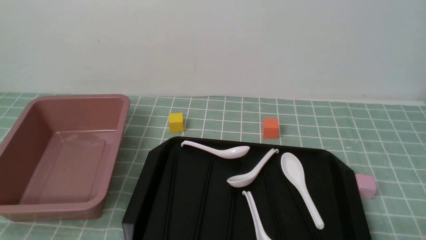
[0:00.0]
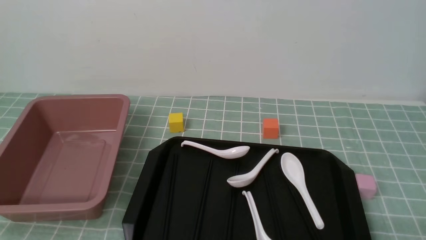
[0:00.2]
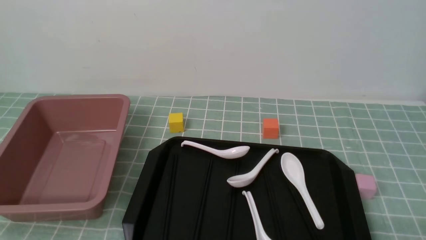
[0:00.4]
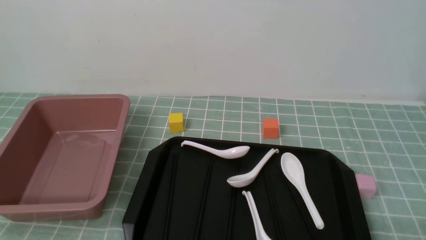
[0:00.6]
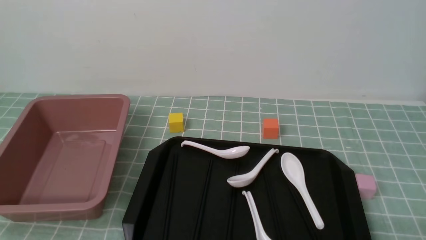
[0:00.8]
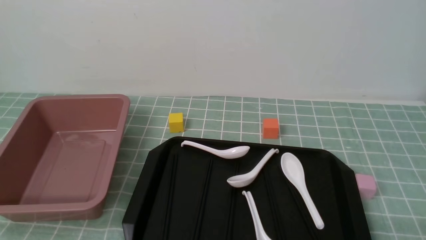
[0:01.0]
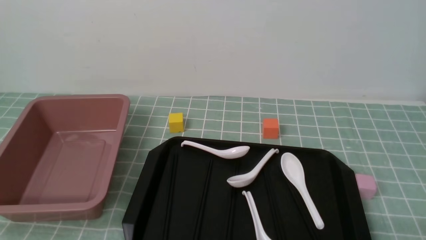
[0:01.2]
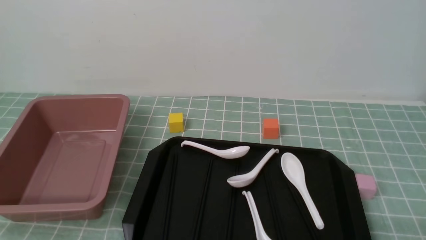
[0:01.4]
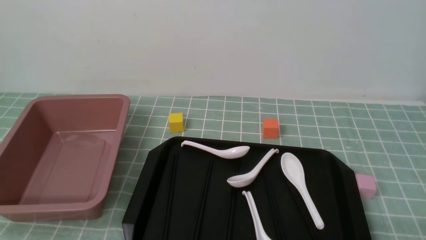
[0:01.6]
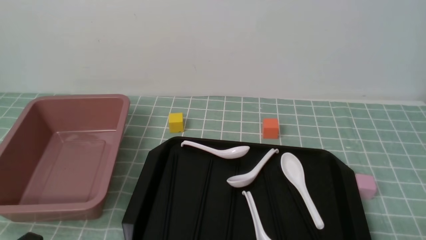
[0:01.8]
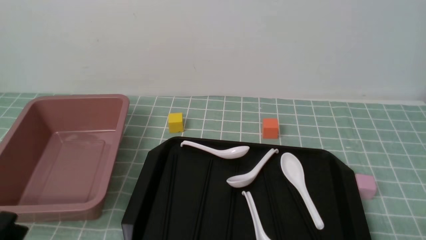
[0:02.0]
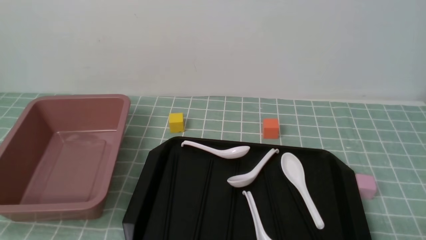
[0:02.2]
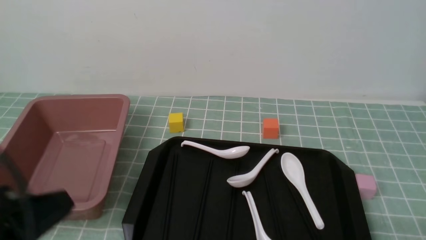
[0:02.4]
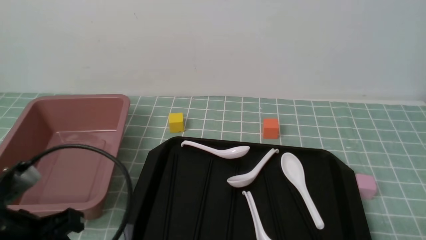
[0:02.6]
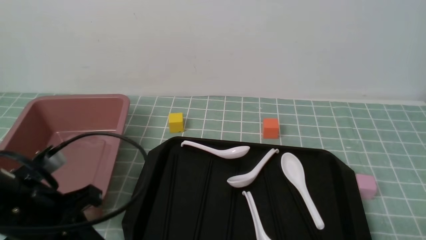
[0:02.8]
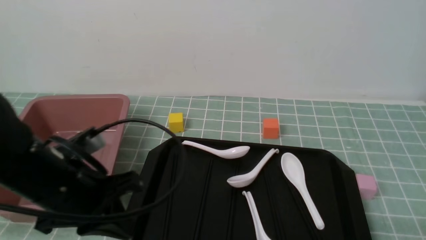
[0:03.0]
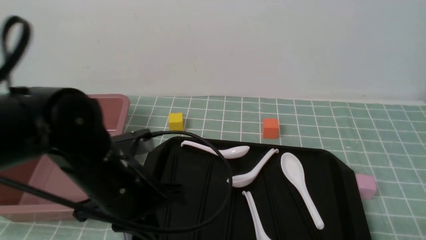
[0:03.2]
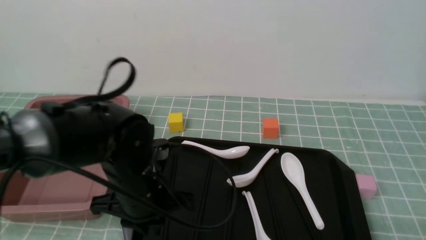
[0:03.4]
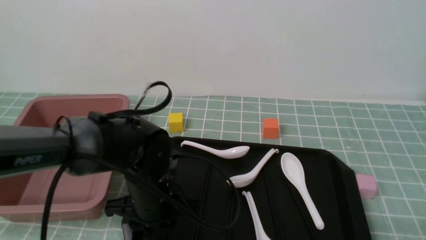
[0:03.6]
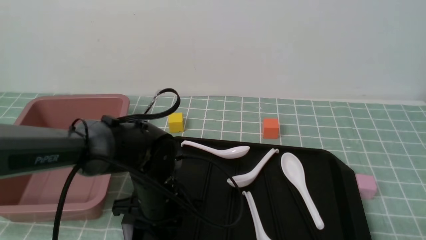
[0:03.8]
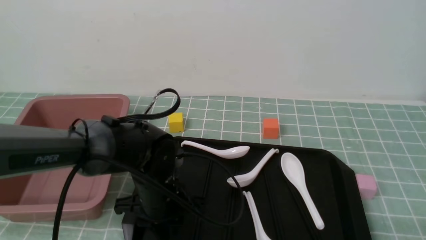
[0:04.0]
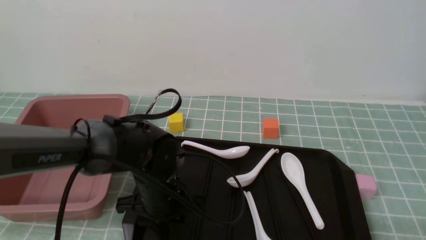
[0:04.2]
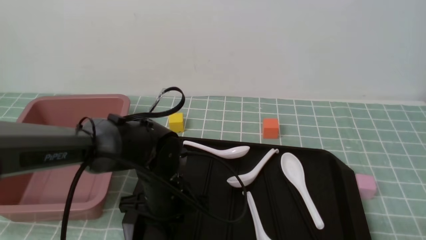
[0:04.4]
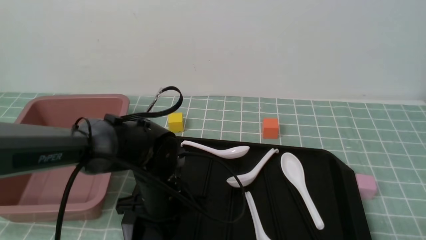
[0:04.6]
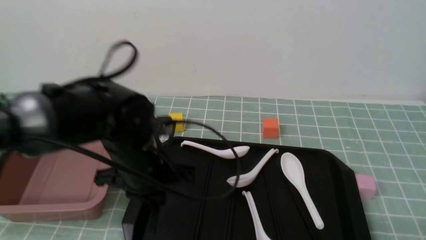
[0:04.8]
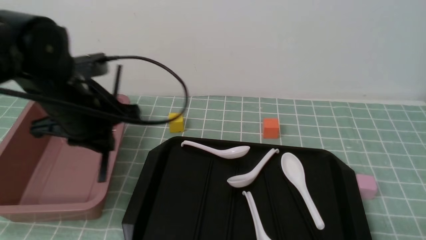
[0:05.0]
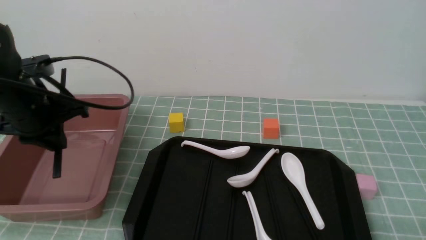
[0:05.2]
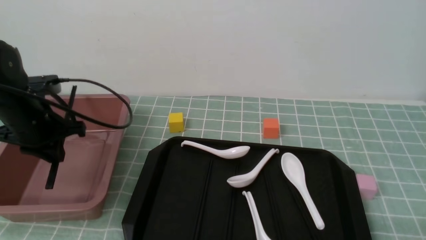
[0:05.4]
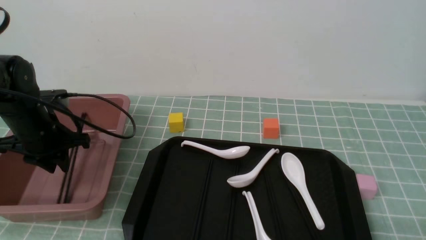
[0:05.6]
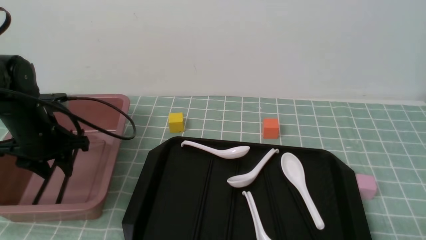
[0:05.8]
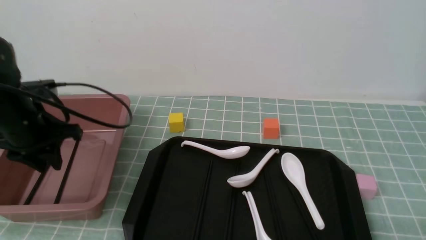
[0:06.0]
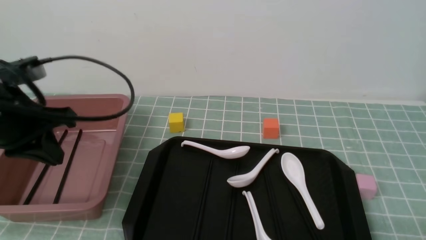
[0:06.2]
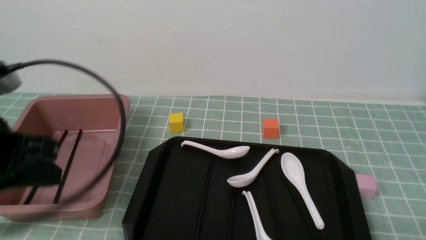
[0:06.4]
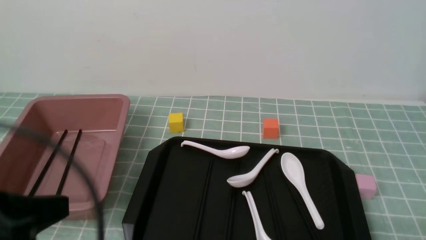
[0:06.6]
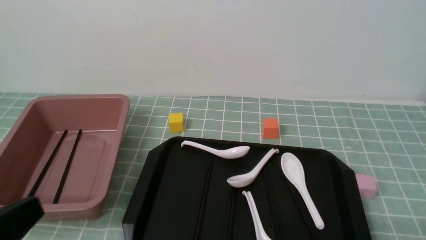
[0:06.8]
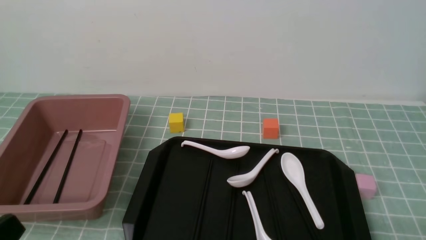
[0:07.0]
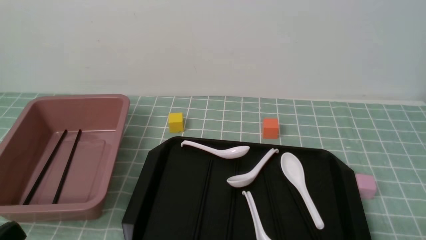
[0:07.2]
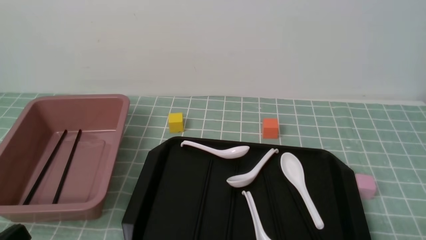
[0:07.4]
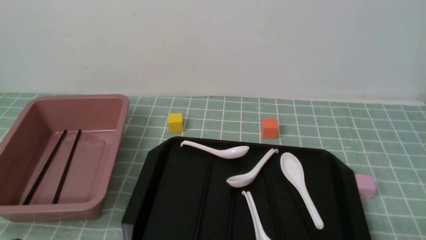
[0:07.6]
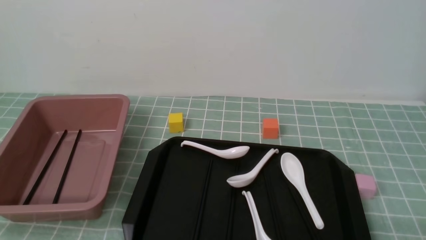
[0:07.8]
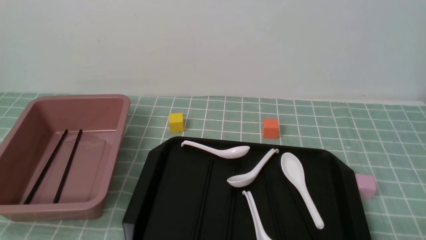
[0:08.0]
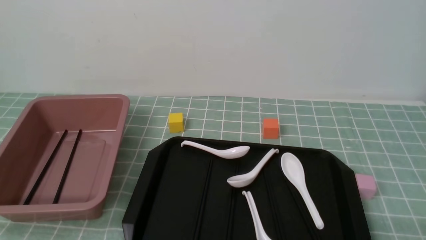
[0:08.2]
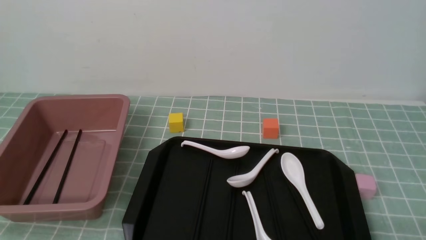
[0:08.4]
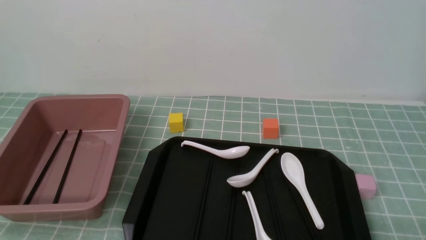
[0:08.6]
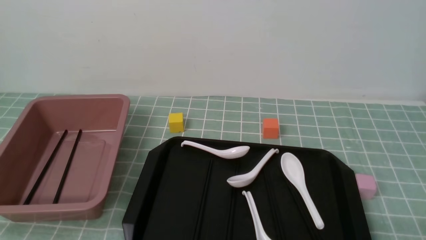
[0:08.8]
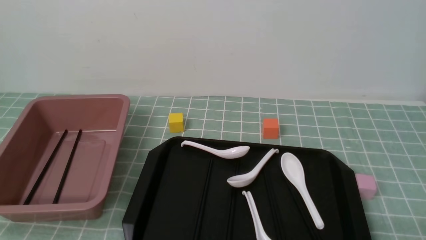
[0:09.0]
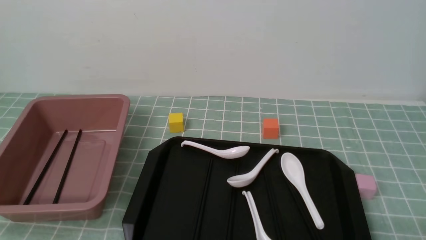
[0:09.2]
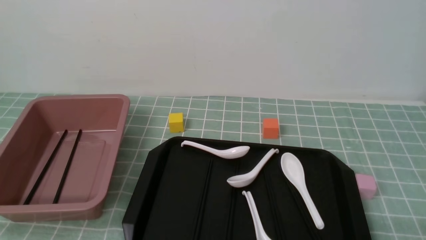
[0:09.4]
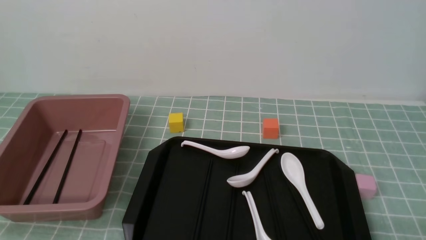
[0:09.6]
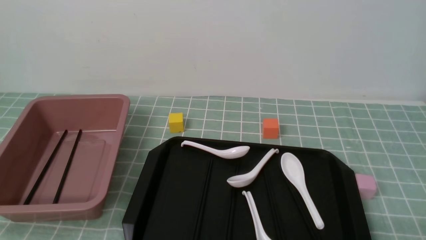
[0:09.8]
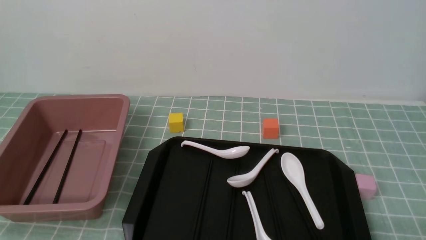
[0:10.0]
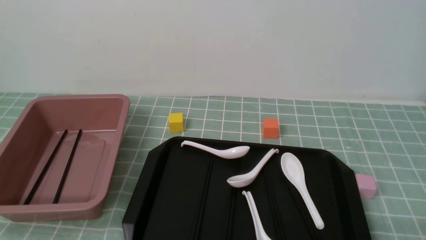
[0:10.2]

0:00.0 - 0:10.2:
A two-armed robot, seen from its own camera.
Step, 0:00.0 - 0:04.8: use the left arm to grab a pair of chopsticks.
Step, 0:05.0 - 0:06.0: use the left arm to put the chopsticks into the lunch box.
0:01.4 - 0:03.0: The left gripper shifts approximately 20 cm forward, to the right and upward, and closes its fingers.
0:03.0 - 0:04.4: The left gripper shifts some 15 cm downward, to the right and forward, and opens.
0:04.4 - 0:05.8: The left gripper is displaced to the left and upward by about 20 cm, and opens its fingers.
0:05.8 - 0:07.2: The left gripper travels backward by roughly 30 cm, and closes up.
0:08.8 - 0:10.2: Both grippers stay about where they are.

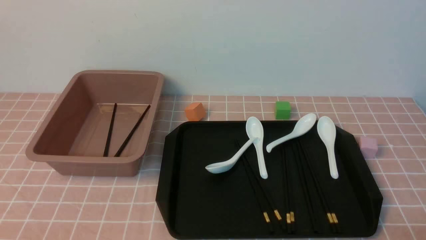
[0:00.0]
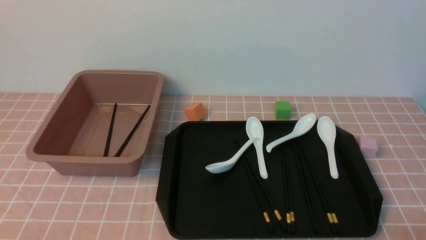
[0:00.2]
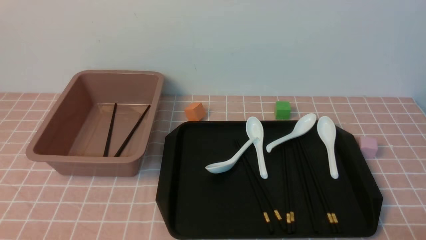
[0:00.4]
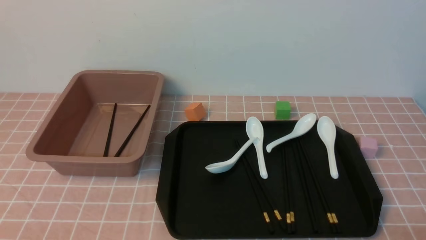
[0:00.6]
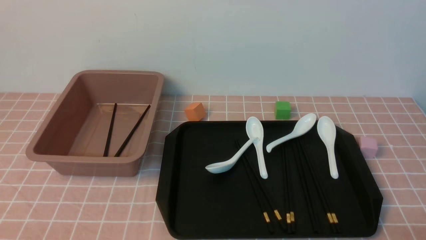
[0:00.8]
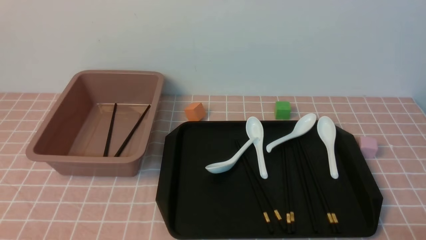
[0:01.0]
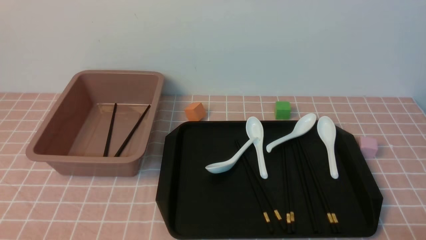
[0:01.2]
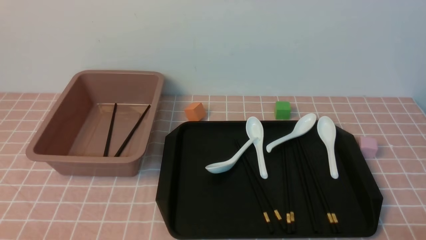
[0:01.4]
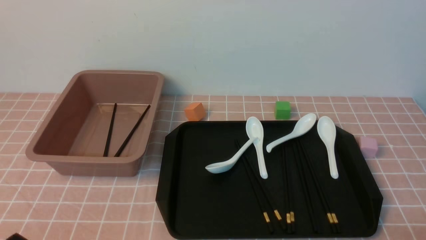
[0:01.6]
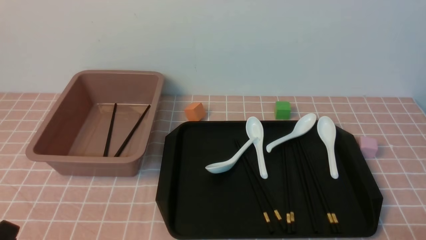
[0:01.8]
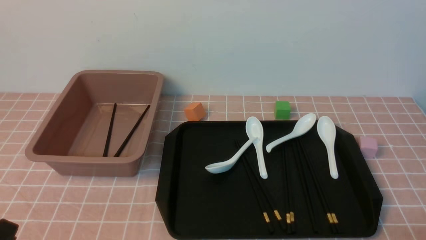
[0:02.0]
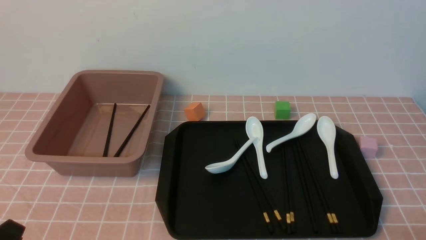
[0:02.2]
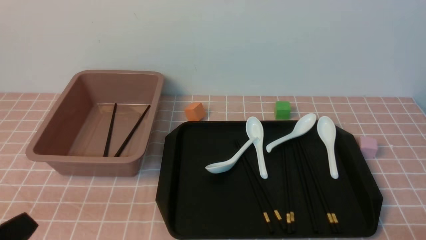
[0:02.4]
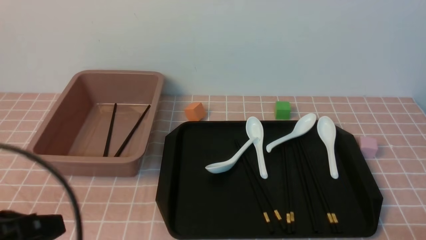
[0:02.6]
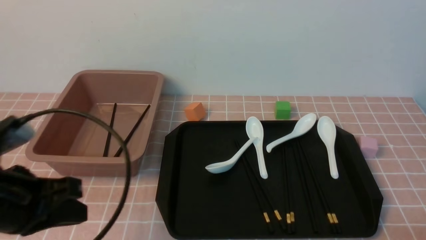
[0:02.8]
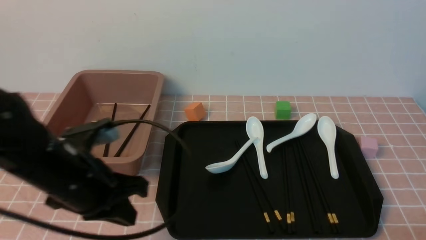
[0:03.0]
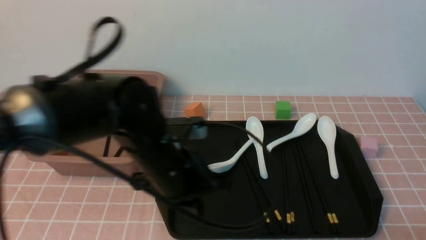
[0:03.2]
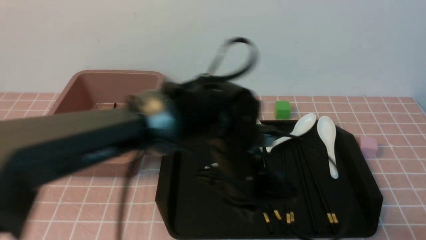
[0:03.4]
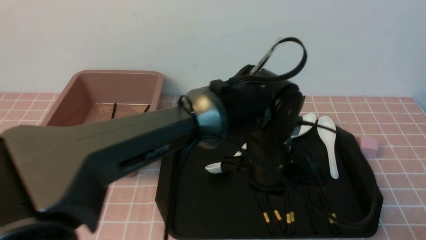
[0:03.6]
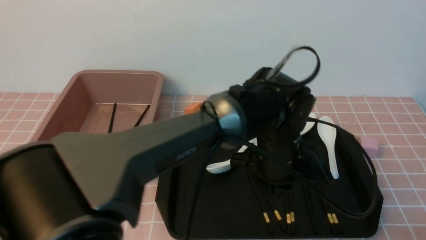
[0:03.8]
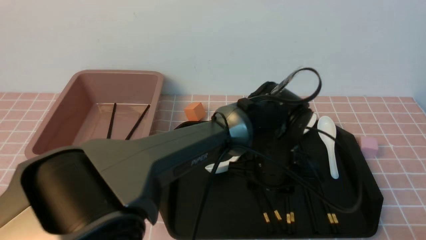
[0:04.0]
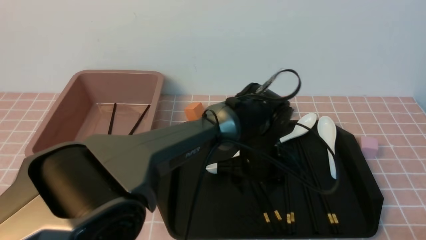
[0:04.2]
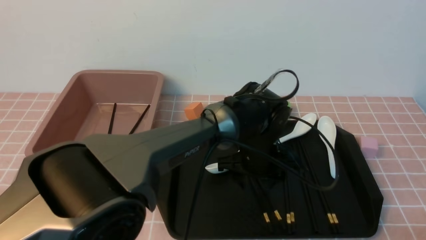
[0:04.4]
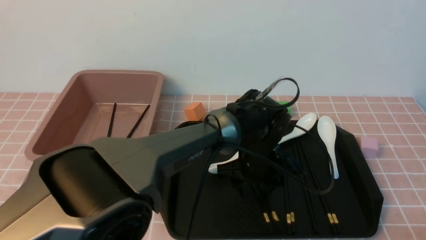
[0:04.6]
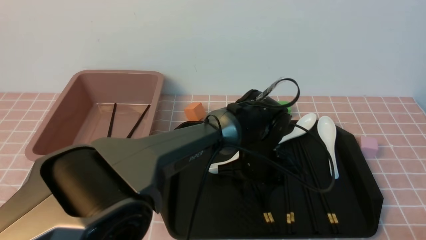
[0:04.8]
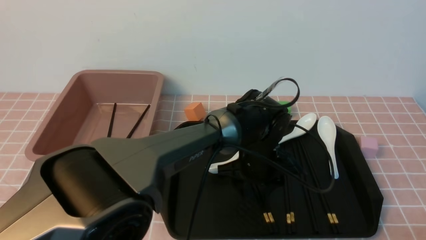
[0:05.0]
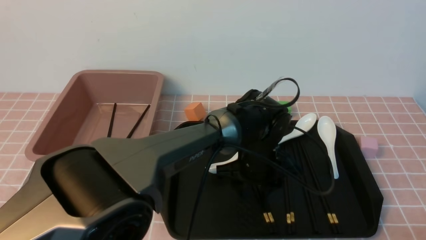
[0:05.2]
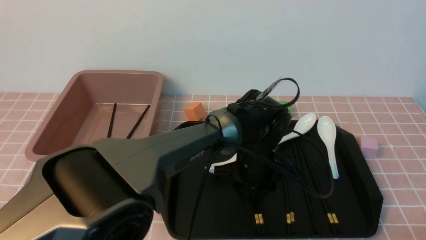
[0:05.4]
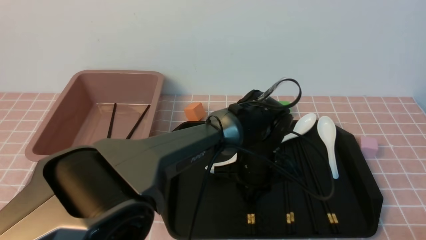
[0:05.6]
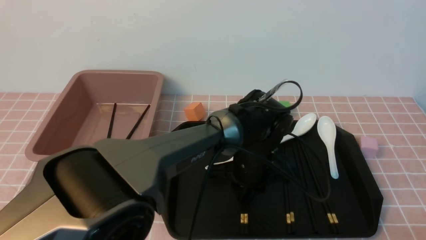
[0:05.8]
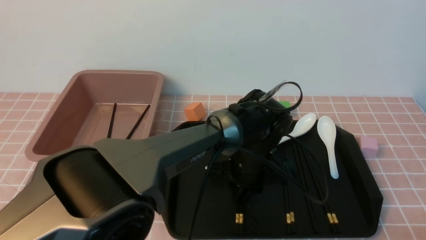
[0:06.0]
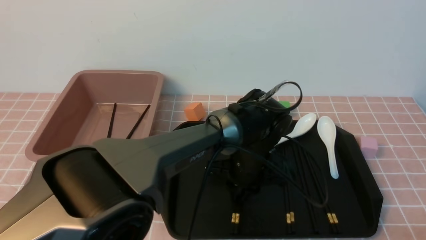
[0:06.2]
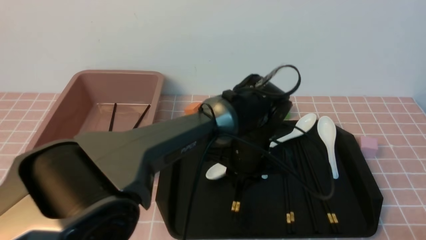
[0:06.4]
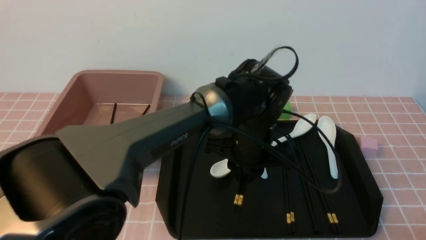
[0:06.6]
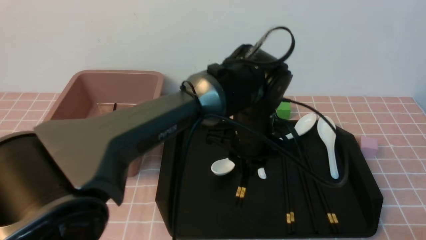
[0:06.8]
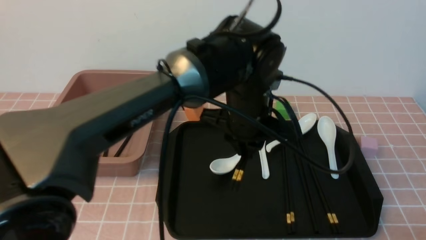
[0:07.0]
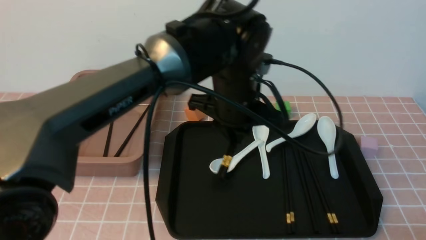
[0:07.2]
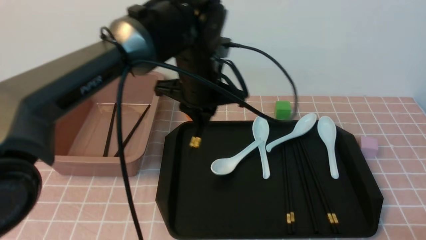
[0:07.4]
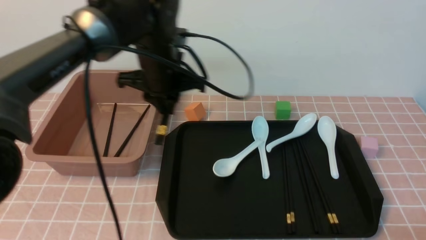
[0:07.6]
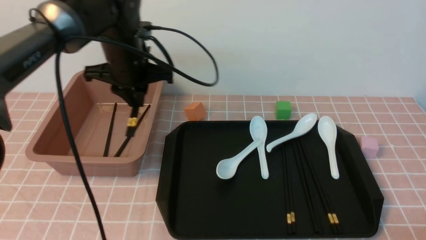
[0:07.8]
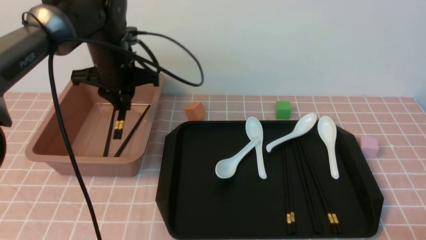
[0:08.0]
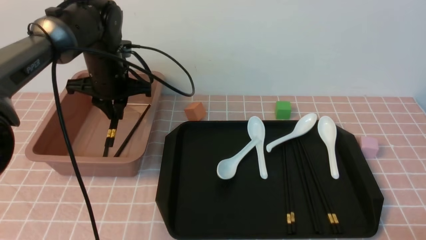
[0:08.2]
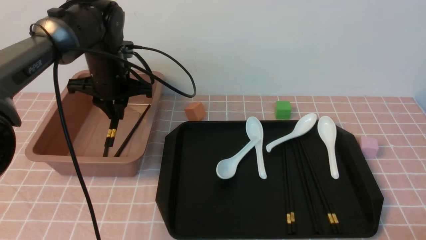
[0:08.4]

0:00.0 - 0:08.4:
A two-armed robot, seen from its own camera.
Step, 0:00.0 - 0:07.0: use the left arm to grab a pair of chopsticks.
0:01.4 - 0:02.8: The left gripper goes some 15 cm forward and upward, and closes.
0:02.8 - 0:04.2: The left gripper heads to the right and forward, covering some 35 cm, and opens its fingers.
0:04.2 - 0:05.6: The left gripper closes its fingers.
0:05.6 - 0:07.0: The left gripper heads upward, covering roughly 15 cm.
0:07.0 - 0:08.4: The left gripper goes about 25 cm to the left and forward.
